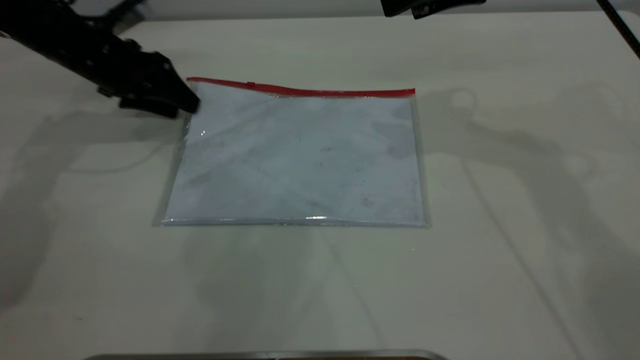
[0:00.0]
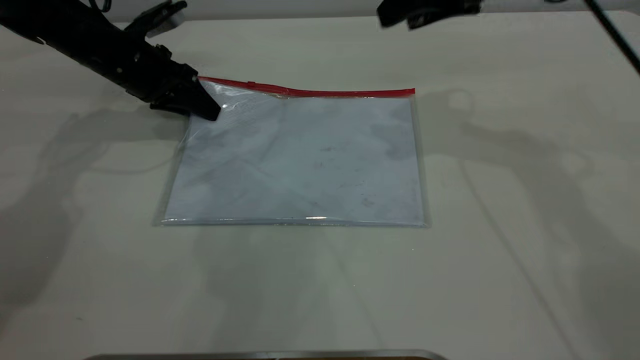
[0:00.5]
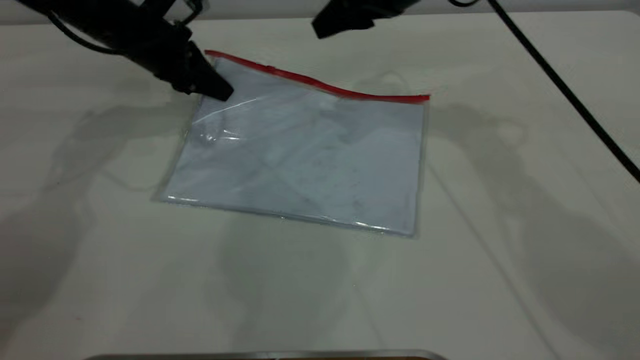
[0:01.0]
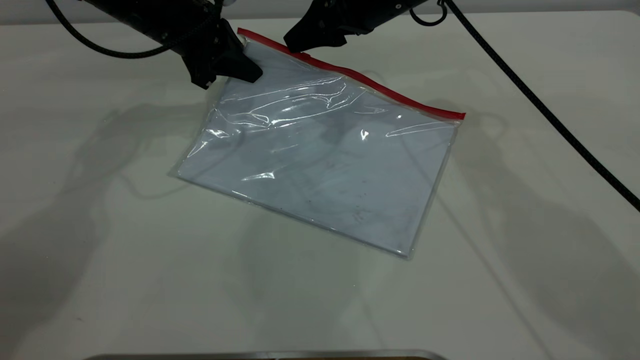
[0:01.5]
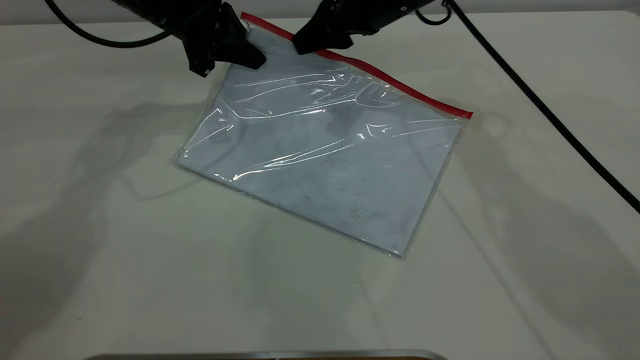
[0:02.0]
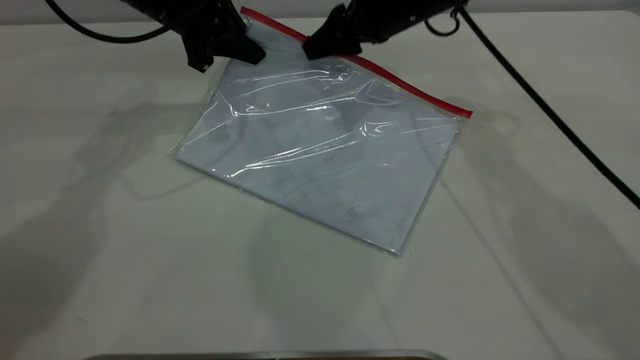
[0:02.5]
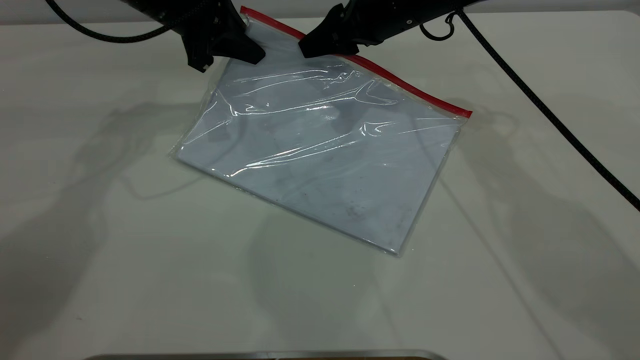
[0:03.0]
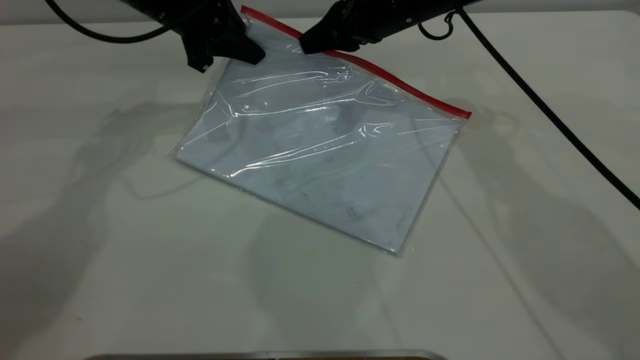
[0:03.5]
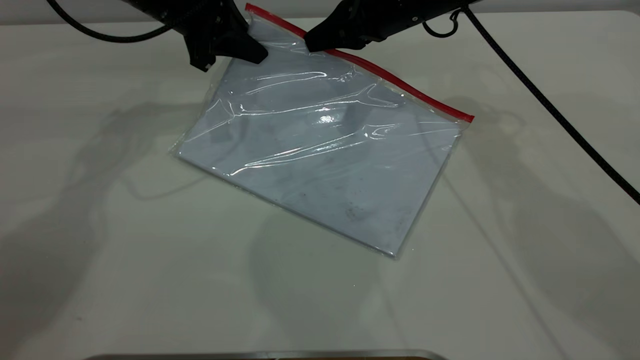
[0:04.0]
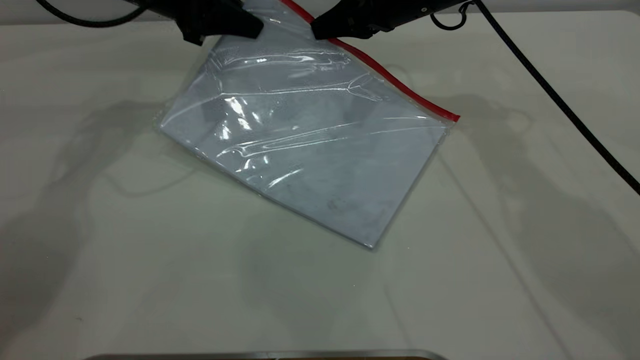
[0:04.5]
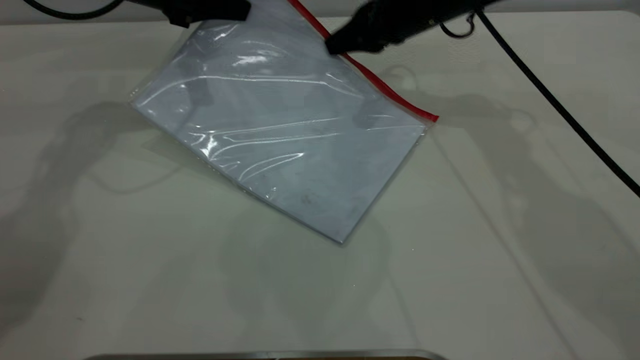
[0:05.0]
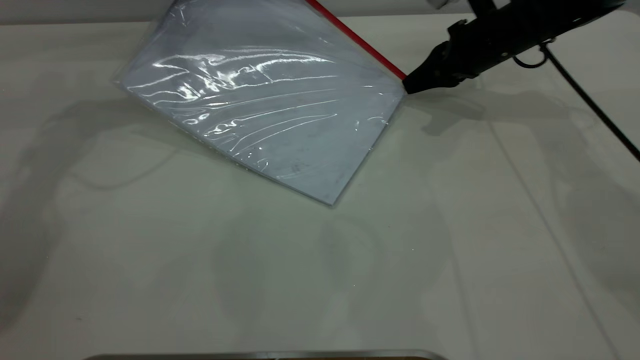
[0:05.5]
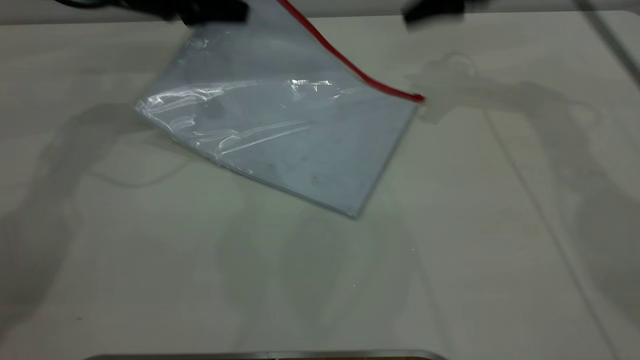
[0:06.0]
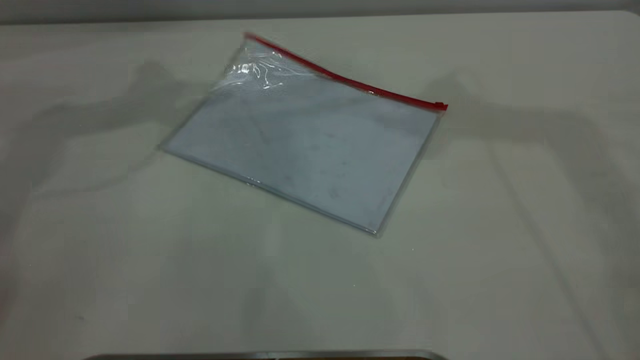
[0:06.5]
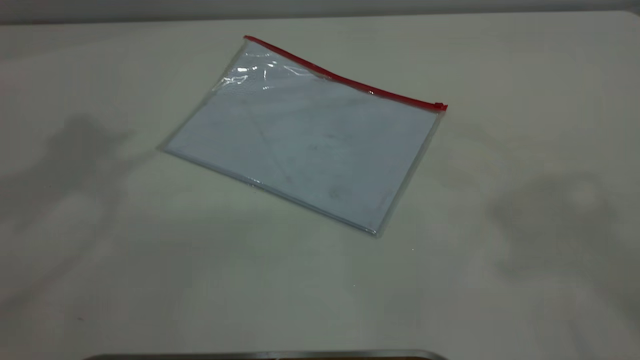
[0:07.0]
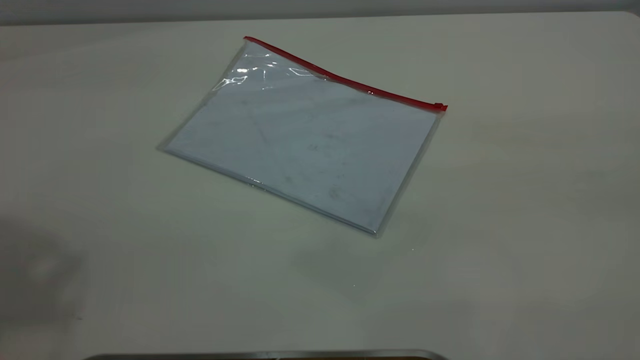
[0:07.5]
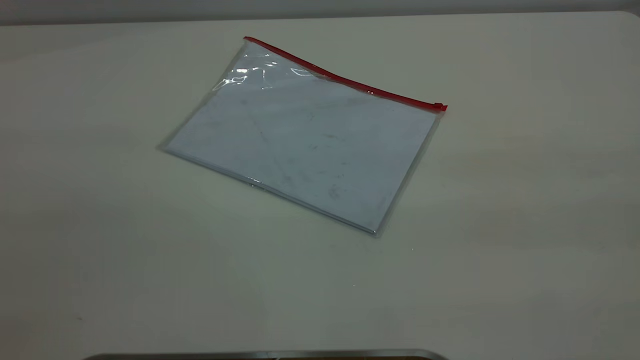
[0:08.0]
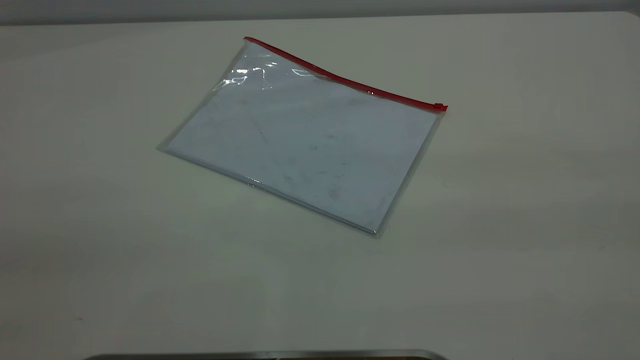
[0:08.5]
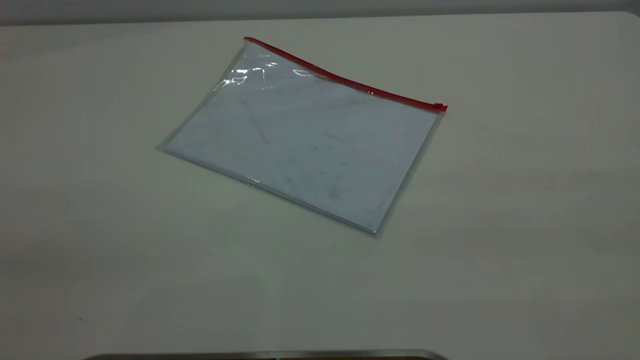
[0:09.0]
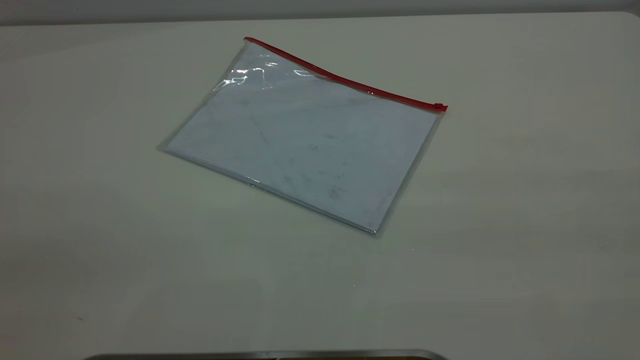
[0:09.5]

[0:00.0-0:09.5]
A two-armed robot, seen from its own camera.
Step, 0:01.5 to 0:05.5: Pulling up the zipper on the transparent plastic bag with the right gripper to close it.
0:00.0 to 0:02.0: The right gripper moves to the left, downward and forward, about 15 cm. Meanwhile the left gripper heads to the right and upward, covering approximately 10 cm, and closes up.
0:02.0 to 0:04.0: The right gripper closes its fingers.
0:04.0 to 0:05.5: The right gripper moves to the right and downward, approximately 15 cm. Meanwhile the left gripper is displaced to the left by about 5 cm.
0:05.5 to 0:07.5: The two grippers go approximately 50 cm backward and upward. The left gripper opens, while the right gripper opens up.
